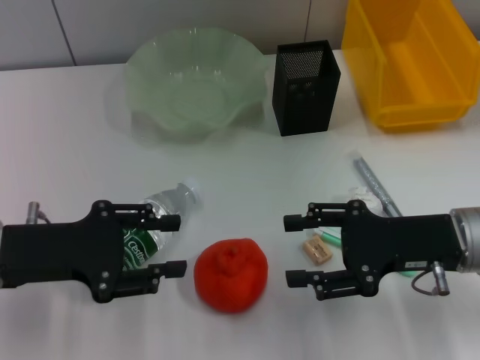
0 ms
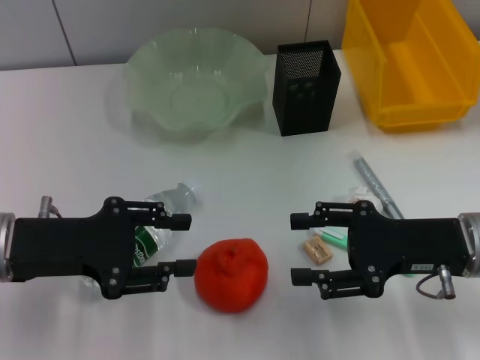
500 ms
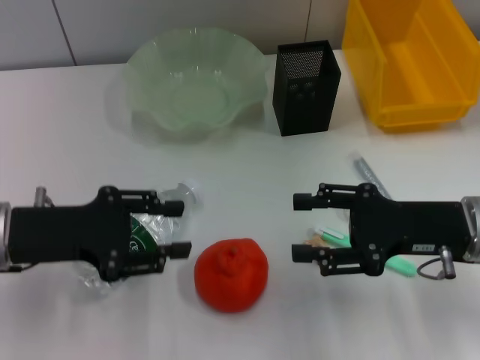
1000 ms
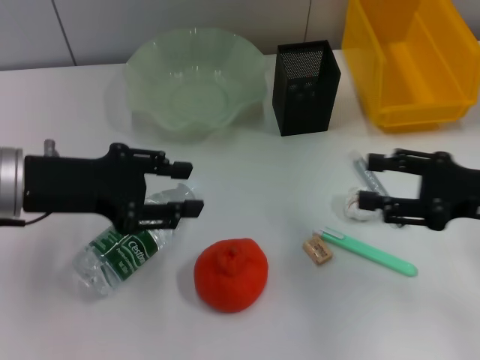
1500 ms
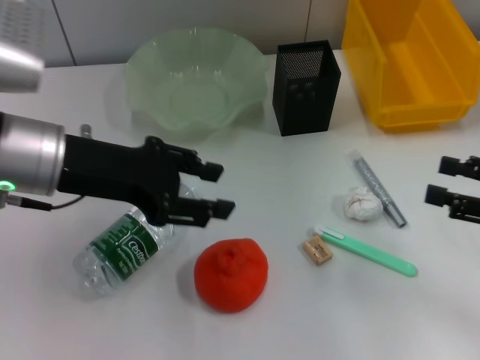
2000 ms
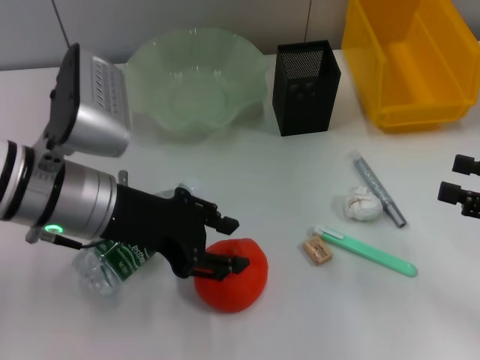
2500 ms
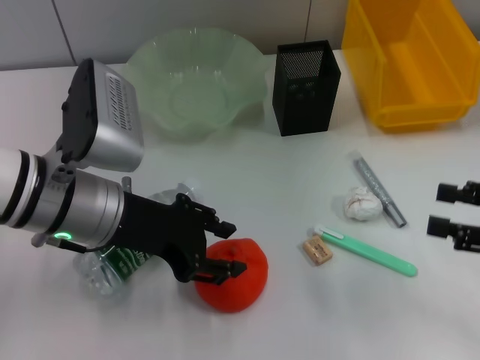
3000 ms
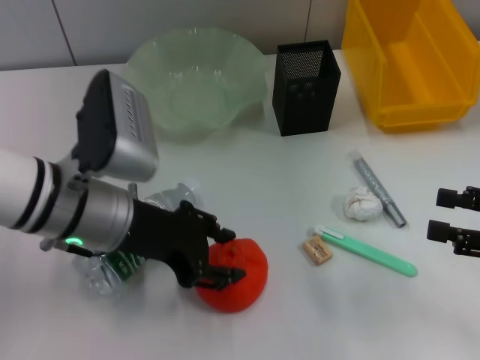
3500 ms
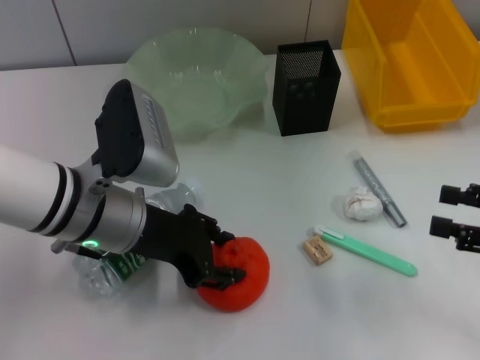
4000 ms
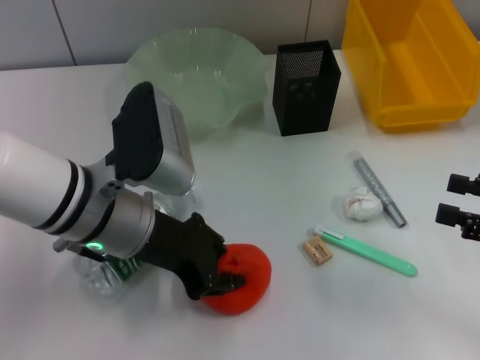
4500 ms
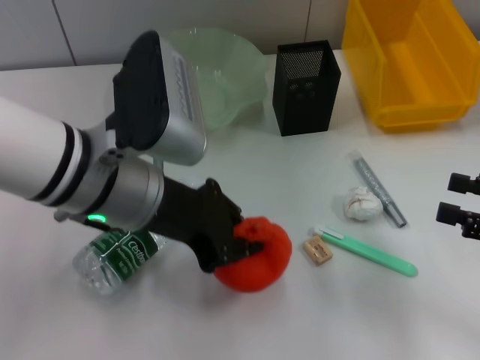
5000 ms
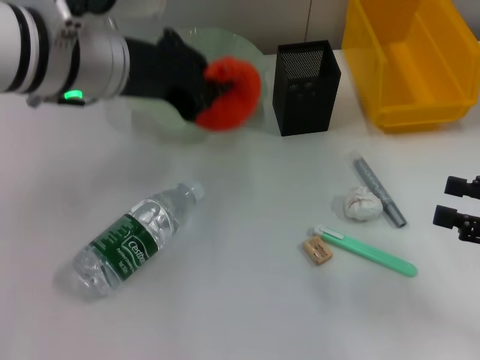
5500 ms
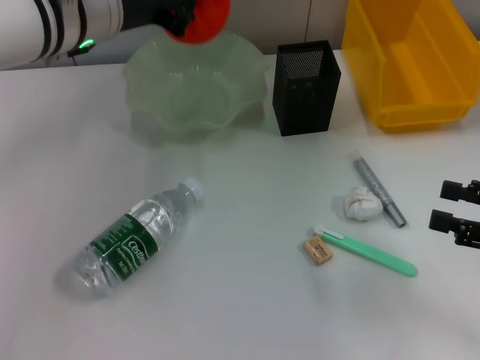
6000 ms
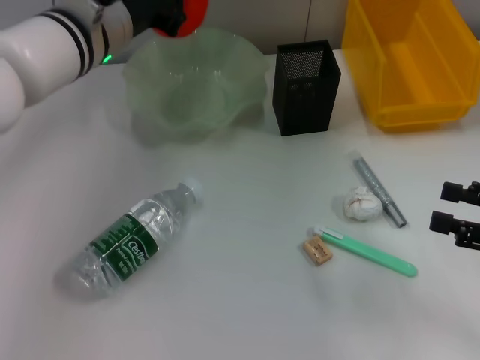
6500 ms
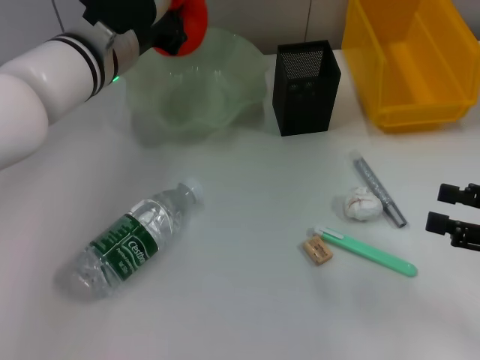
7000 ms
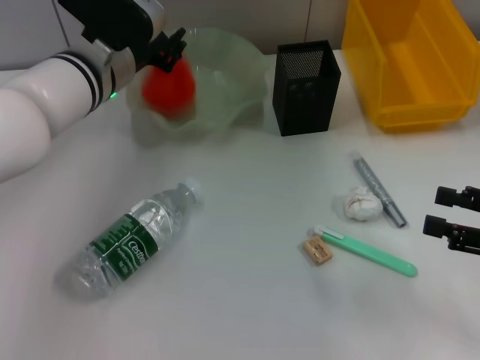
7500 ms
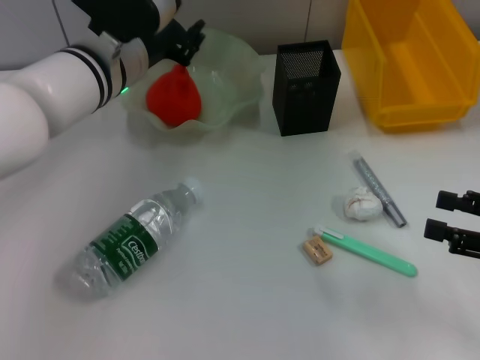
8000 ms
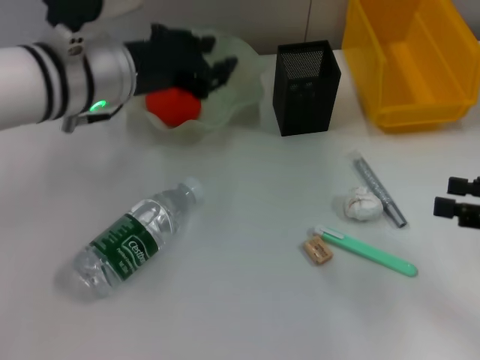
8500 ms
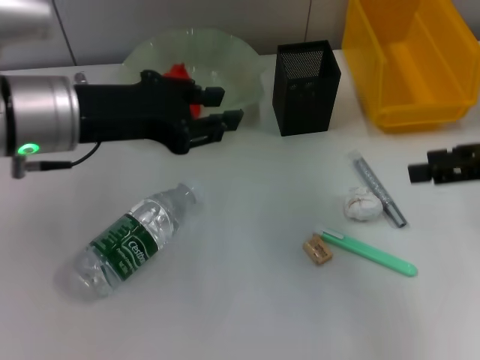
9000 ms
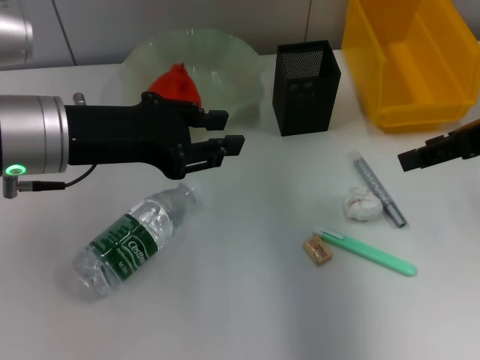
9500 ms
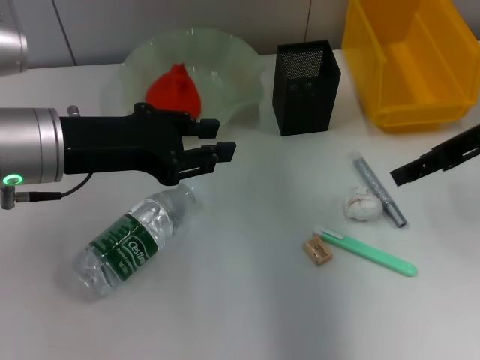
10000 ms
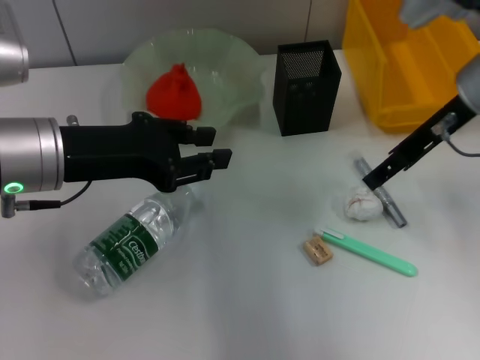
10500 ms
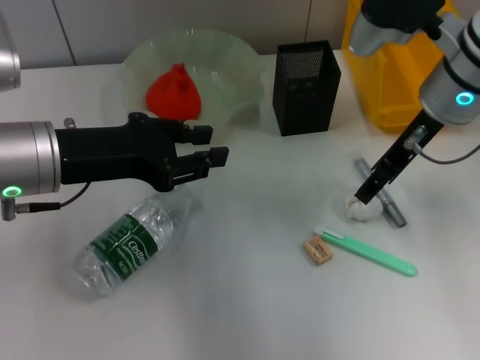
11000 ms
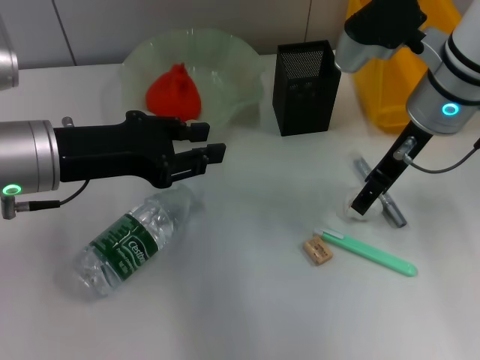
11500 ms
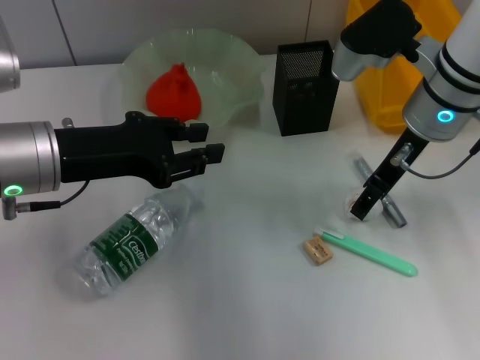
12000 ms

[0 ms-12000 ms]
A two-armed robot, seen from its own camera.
Step, 0 ms to 4000 ms: Grab the orange with the left hand.
Step, 4500 ms to 7500 ms: Place the orange into the fruit bowl with the left hand.
0 ms to 2000 ms: The right gripper shifts roughly 10 cm to the right. The left gripper goes some 10 cm upward and to the right.
2000 ms to 4000 ms: The left gripper moves downward and to the right, some 10 cm.
4000 ms to 6000 ms: The left gripper heads upward and forward, covering approximately 15 cm, and closes its fingers.
6000 ms to 8000 ms: The left gripper heads downward, covering approximately 5 cm, and opens up.
8000 ms to 10000 ms: The left gripper is displaced backward and to the left by approximately 10 cm, while the right gripper shifts some 20 cm forward, upward and to the left.
10000 ms to 12000 ms: The right gripper shifts some 10 cm to the left.

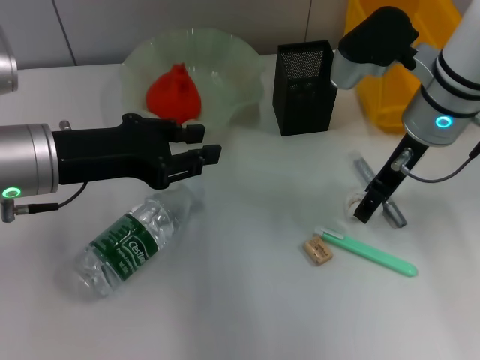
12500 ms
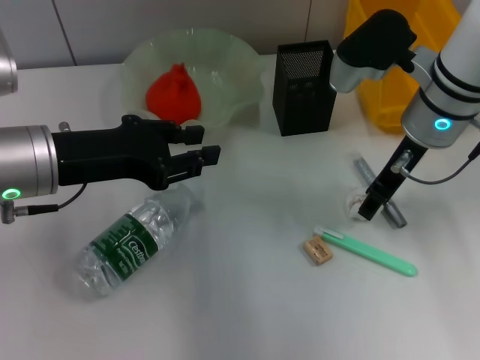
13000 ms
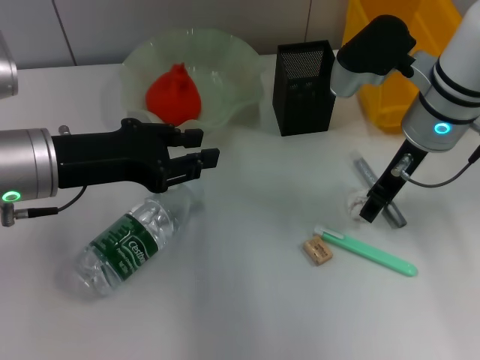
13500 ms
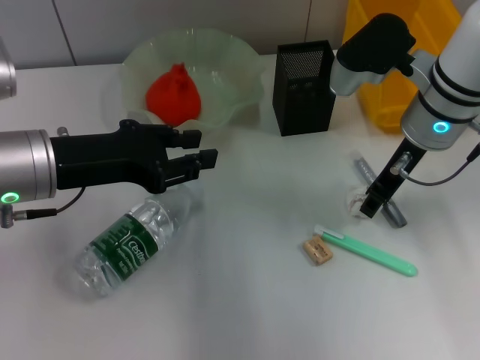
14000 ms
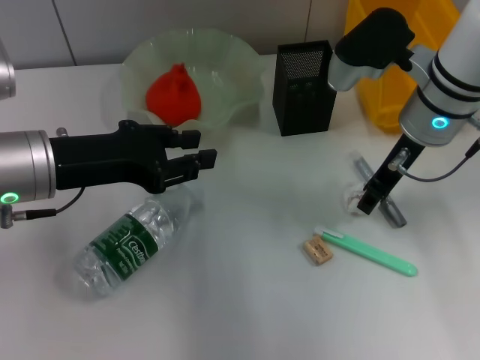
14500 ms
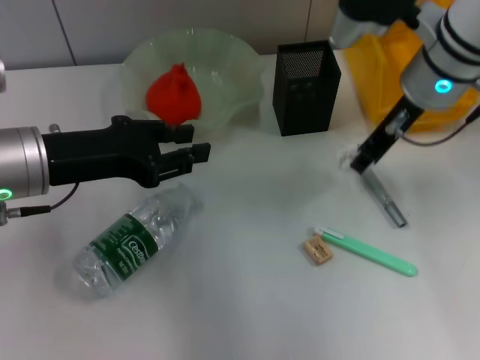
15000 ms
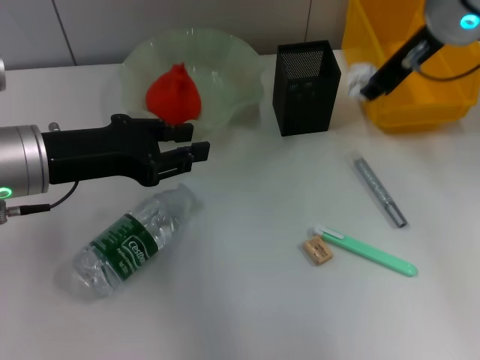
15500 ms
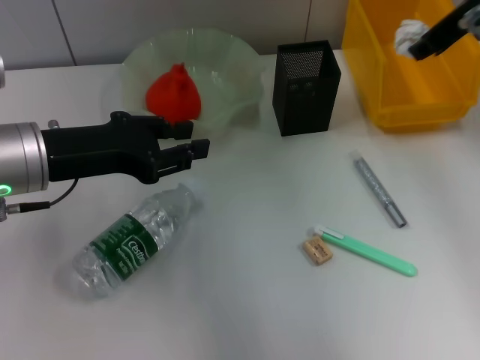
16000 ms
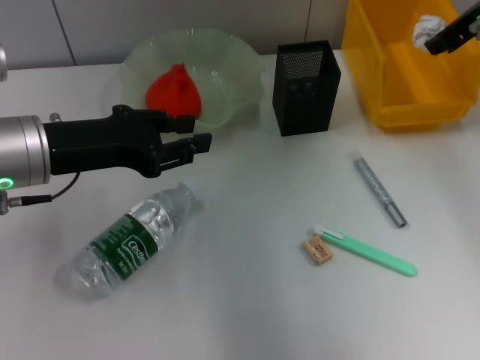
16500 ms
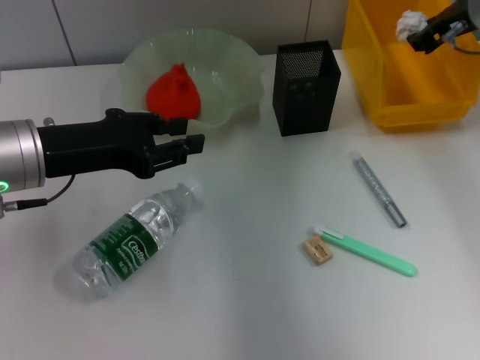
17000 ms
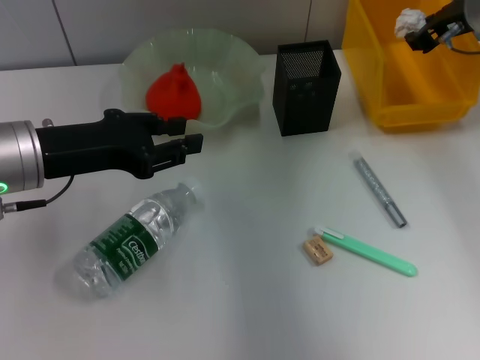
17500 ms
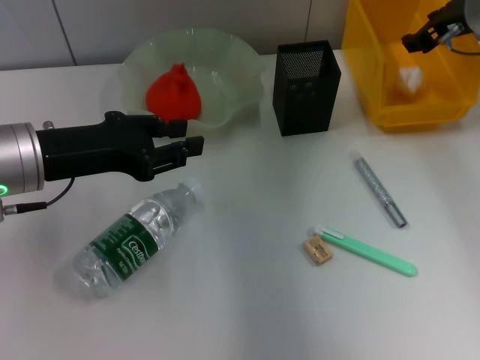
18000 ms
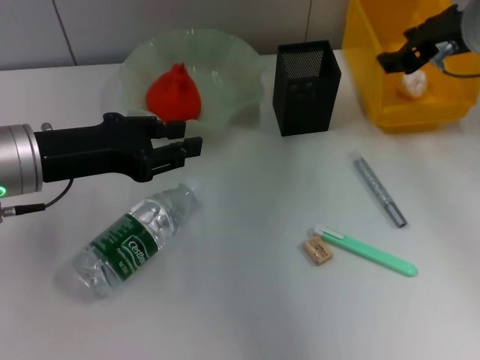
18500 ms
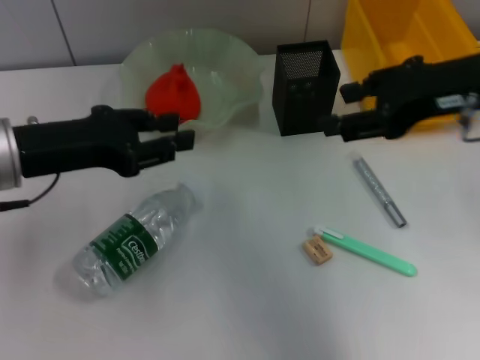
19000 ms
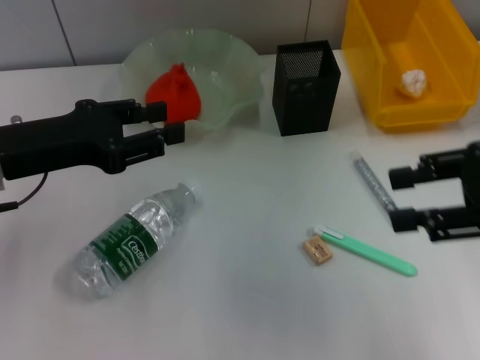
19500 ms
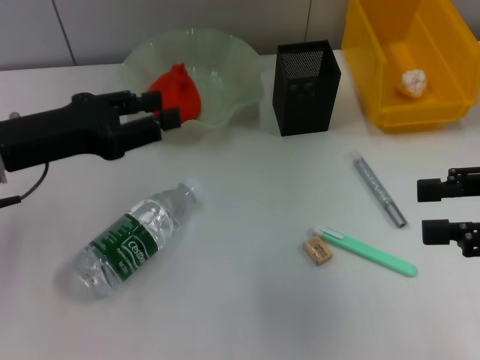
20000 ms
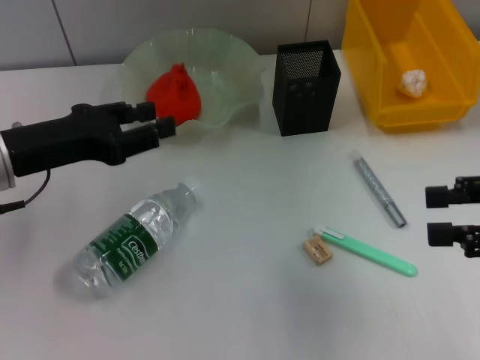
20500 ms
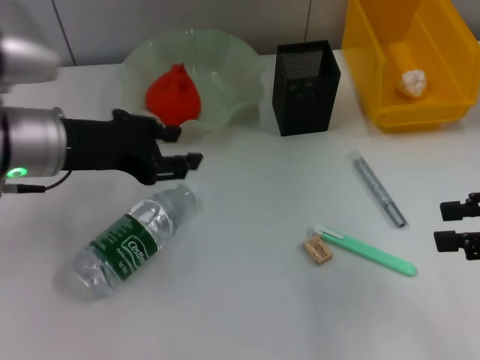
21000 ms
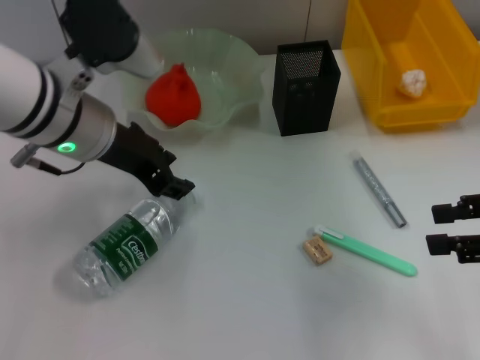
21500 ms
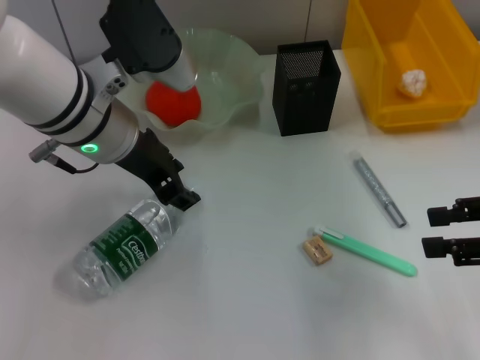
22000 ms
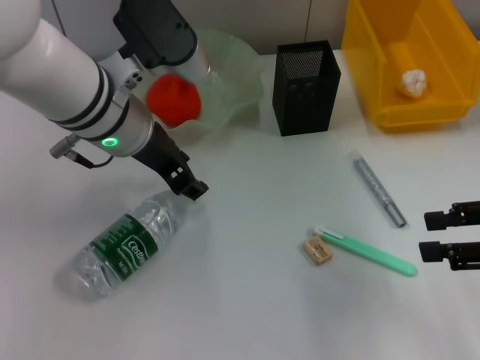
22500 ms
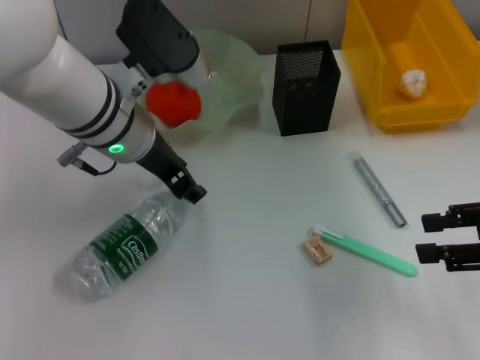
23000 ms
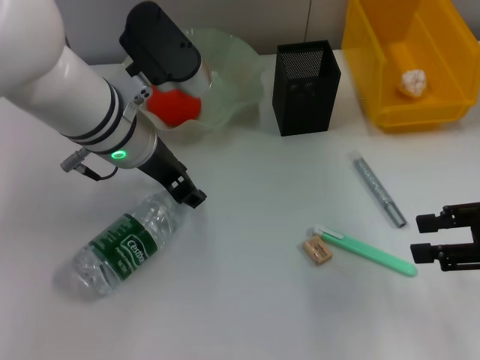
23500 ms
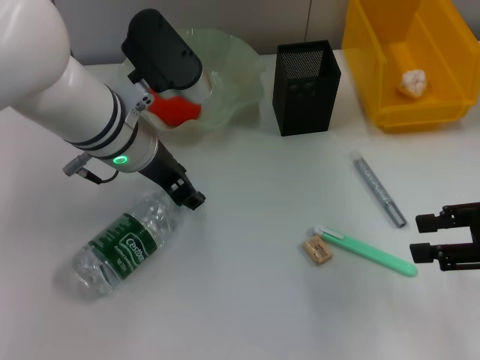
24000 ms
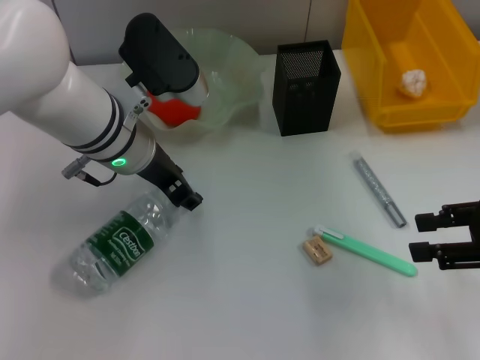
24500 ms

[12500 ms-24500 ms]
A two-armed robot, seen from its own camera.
Step, 14500 ms to 18000 ms: Place the paper ball into the trash can with the right hand.
12500 ms to 14500 ms: The right gripper closes its fingers.
14500 ms to 16500 ms: The right gripper shifts roughly 10 cm to the right and upward.
16500 ms to 18500 ms: The right gripper changes place by some 5 cm, and opens its fingers.
18500 ms to 20500 ms: The right gripper travels backward and to the right by roughly 20 cm.
20500 ms to 22500 ms: The left gripper heads to the right, covering about 15 cm.
22500 ms to 24500 ms: The grippers make only small movements.

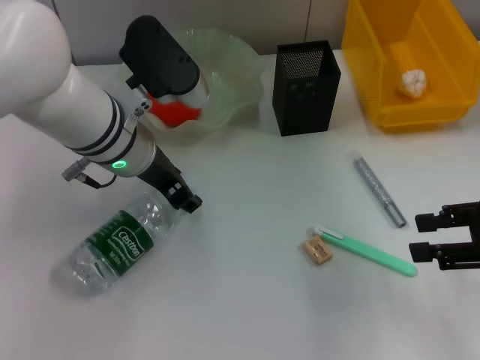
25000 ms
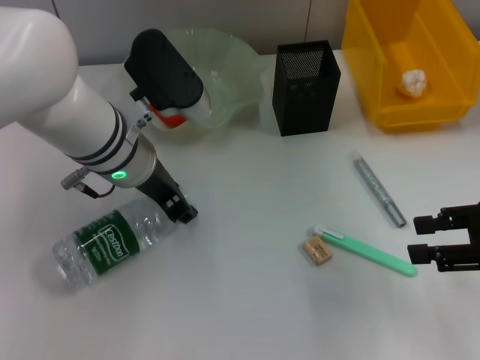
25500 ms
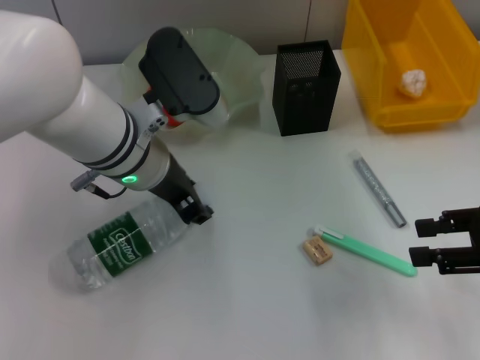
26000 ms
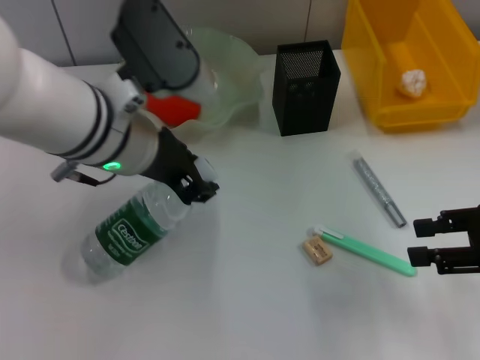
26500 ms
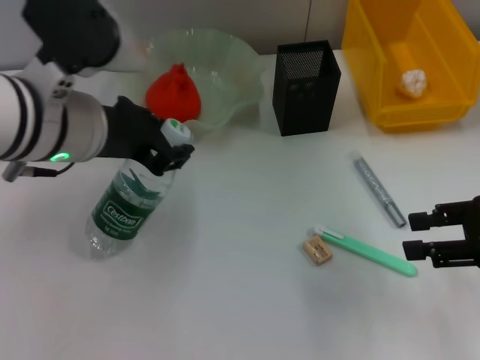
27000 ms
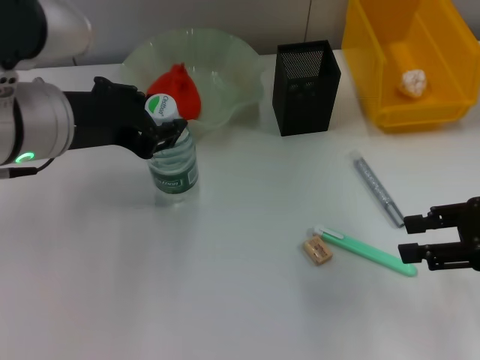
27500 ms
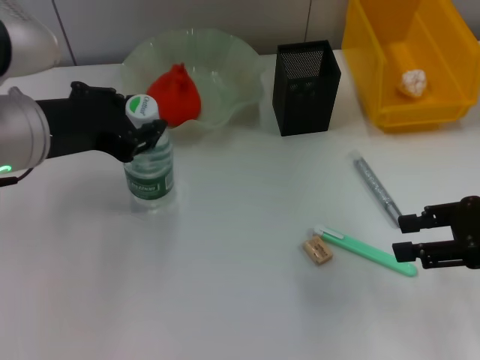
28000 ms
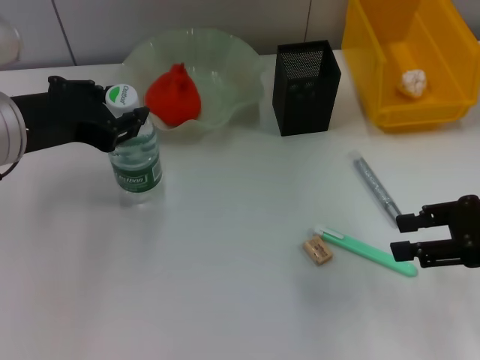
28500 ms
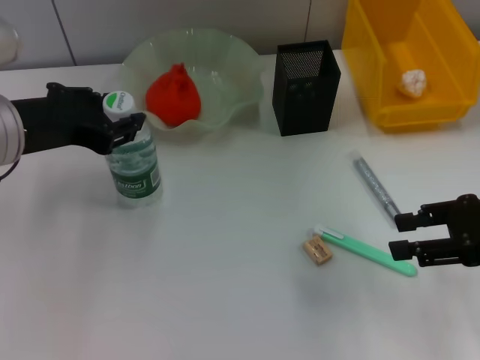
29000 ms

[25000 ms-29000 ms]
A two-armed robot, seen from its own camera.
25000 ms to 27000 ms: The left gripper travels upward and backward by some 10 cm.
27000 ms to 29000 ms: The left gripper travels to the left by approximately 5 cm.
